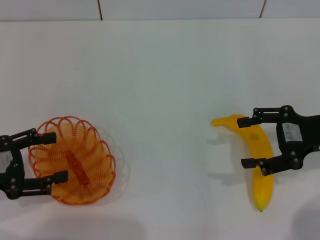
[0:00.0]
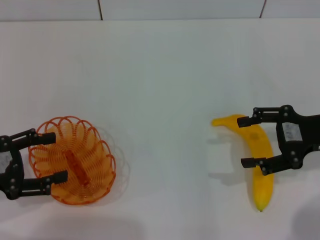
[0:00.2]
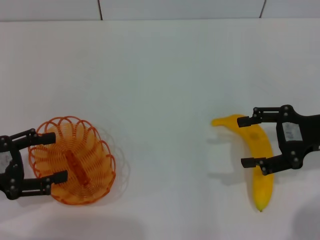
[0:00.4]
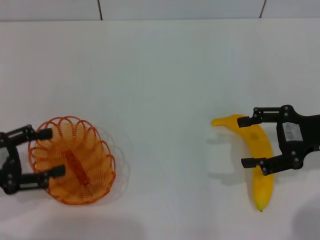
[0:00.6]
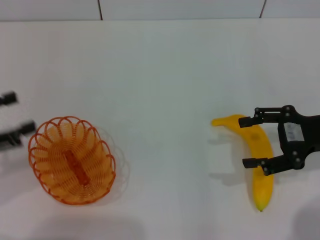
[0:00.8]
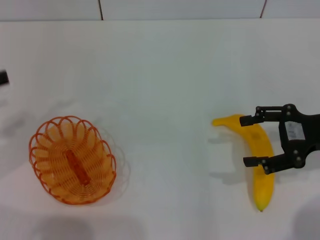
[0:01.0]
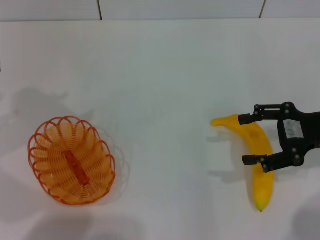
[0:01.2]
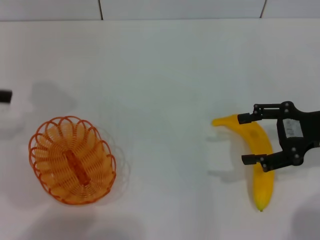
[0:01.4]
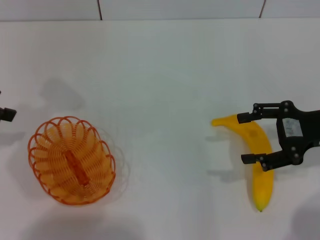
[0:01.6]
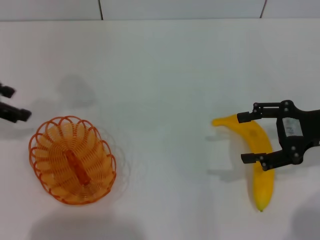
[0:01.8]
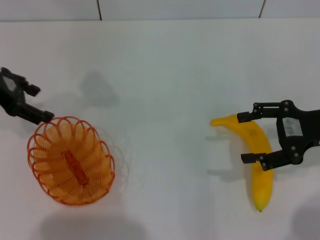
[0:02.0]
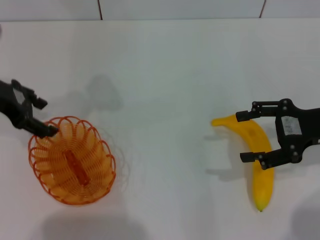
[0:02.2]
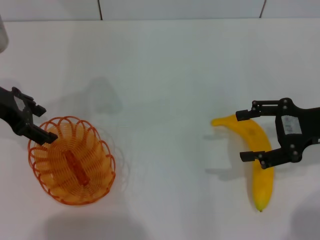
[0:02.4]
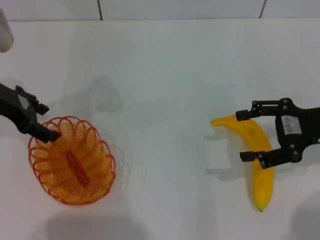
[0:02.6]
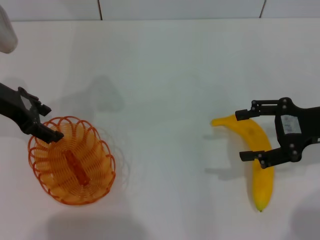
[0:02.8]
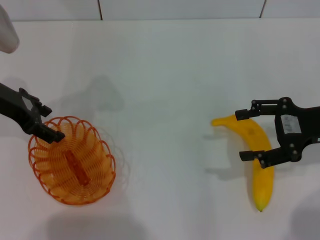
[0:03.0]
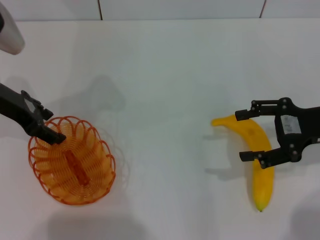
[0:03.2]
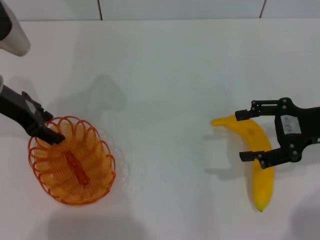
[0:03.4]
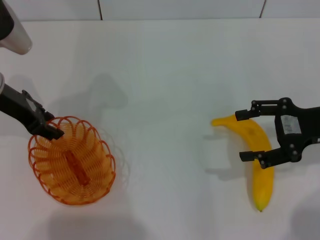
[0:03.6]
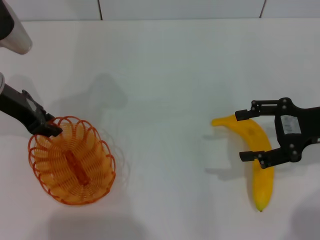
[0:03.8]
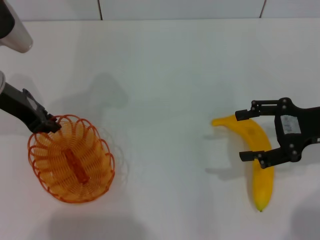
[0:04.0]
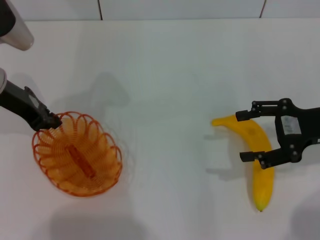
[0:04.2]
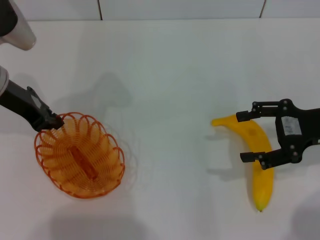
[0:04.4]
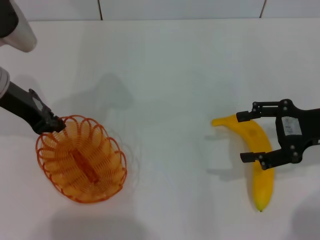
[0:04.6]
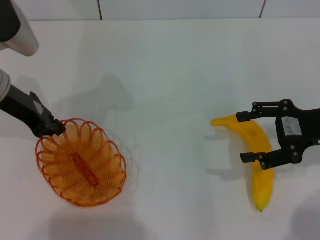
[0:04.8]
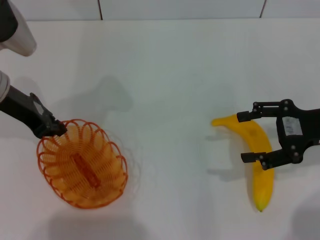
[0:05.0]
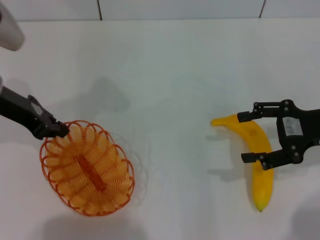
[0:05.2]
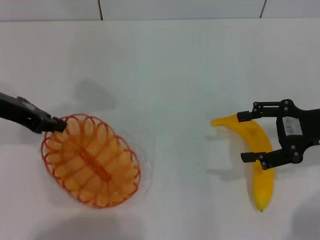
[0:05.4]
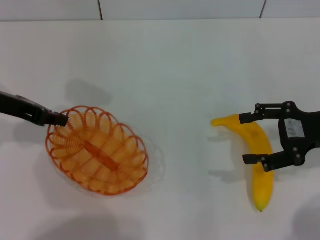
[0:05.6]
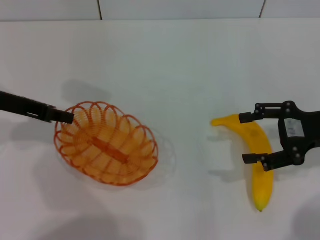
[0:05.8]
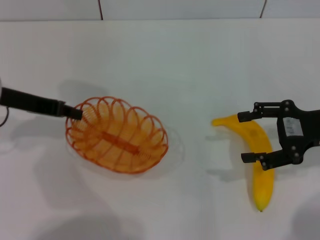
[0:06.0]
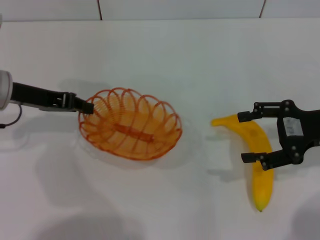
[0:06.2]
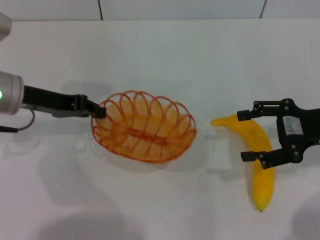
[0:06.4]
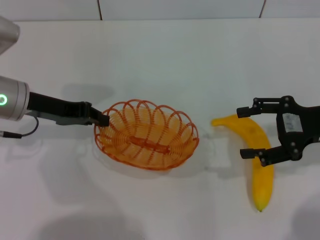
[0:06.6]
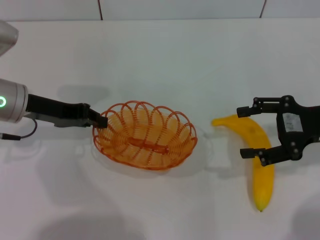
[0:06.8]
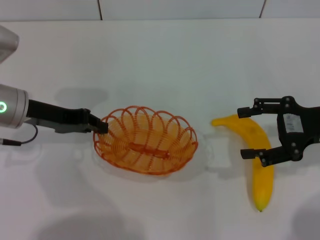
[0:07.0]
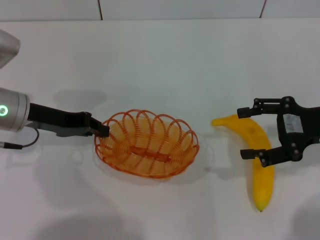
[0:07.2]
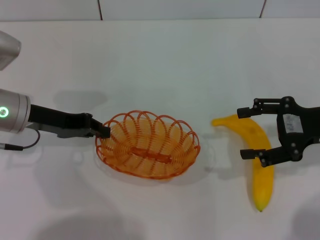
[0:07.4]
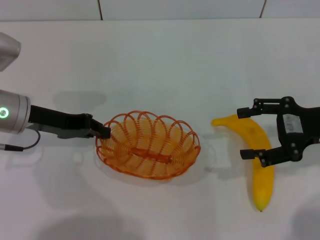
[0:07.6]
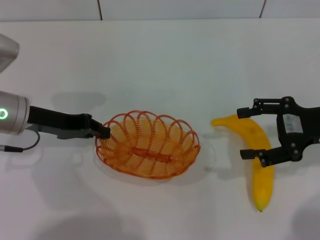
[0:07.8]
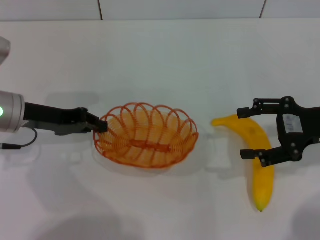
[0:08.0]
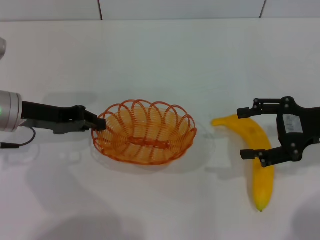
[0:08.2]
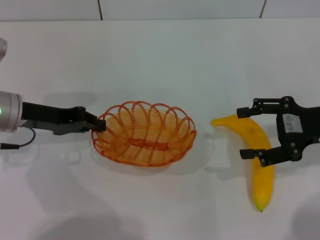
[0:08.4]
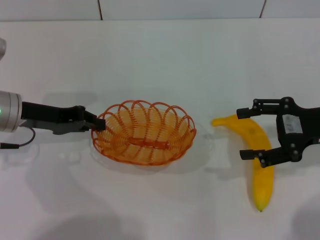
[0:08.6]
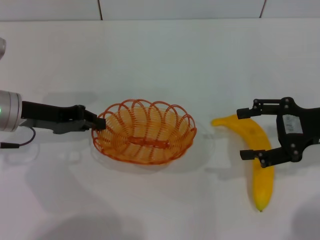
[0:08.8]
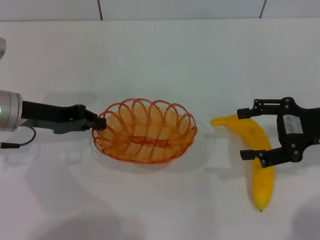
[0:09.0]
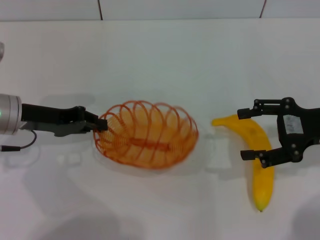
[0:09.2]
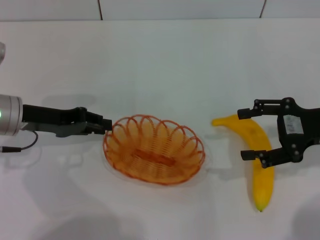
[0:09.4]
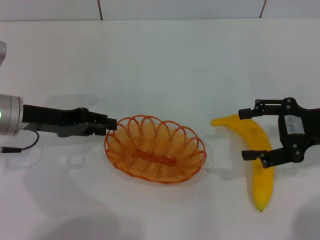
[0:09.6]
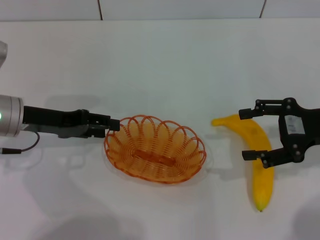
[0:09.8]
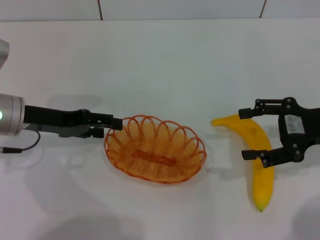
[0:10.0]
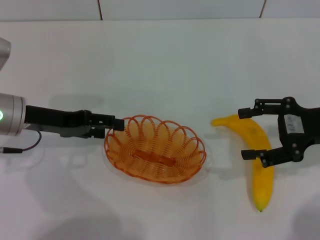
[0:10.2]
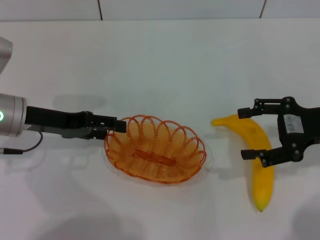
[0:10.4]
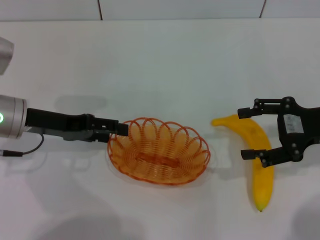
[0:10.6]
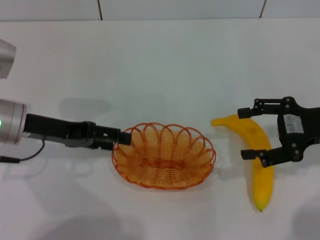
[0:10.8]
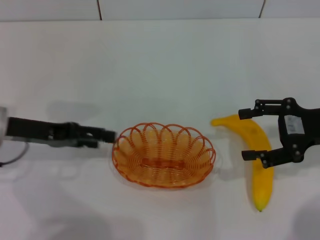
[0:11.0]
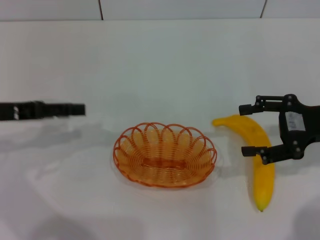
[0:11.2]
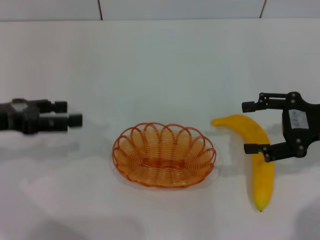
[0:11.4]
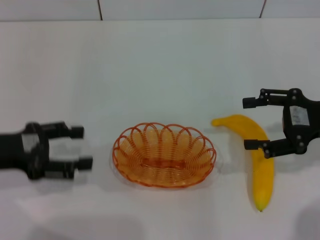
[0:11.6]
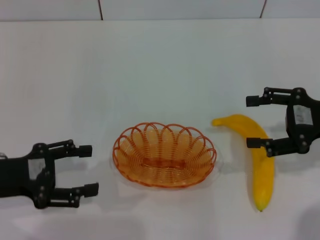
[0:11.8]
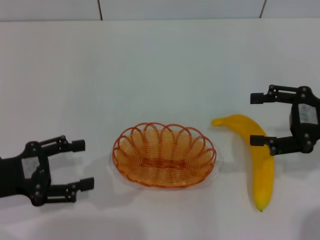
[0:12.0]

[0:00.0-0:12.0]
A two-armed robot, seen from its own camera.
Step, 0:00.0 to 0:05.8: Pick up the basket with the left gripper.
Step, 0:06.0 to 0:11.4: Place the basket in the center of view with the left gripper.
0:00.0 to 0:01.6: The left gripper goes about 15 cm forward and upward.
0:01.6 to 0:03.0: The left gripper is displaced to the right by roughly 10 cm.
0:03.0 to 0:04.4: The left gripper closes up.
0:06.0 to 0:07.6: The grippers move only a little.
0:07.6 to 0:09.0: The grippers make only small movements.
0:09.0 to 0:10.4: The left gripper opens up.
0:10.4 to 0:12.0: The left gripper shifts roughly 10 cm backward and to the left.

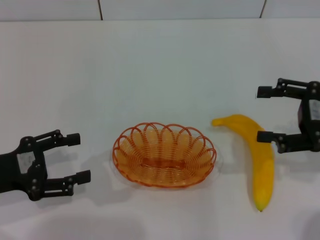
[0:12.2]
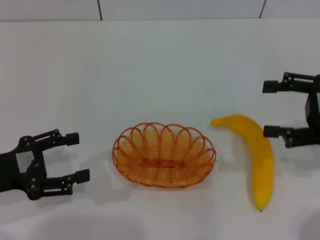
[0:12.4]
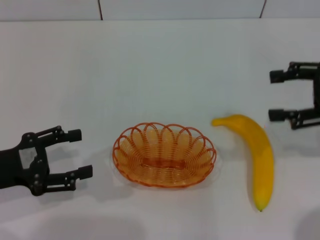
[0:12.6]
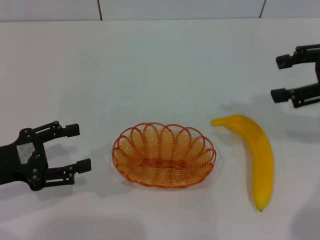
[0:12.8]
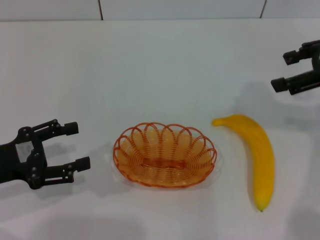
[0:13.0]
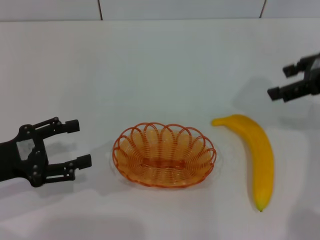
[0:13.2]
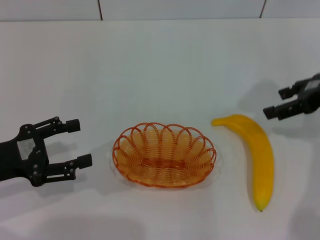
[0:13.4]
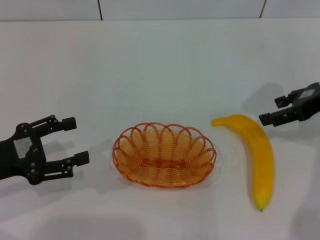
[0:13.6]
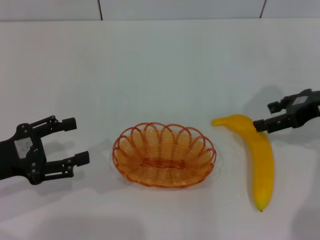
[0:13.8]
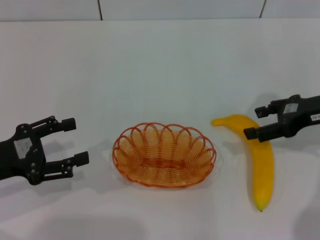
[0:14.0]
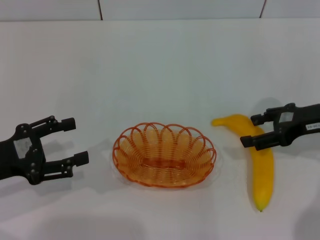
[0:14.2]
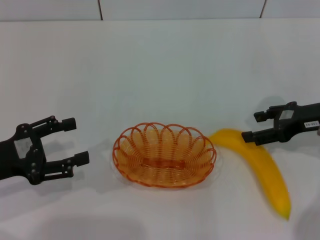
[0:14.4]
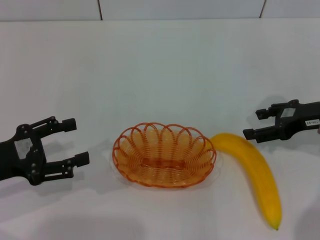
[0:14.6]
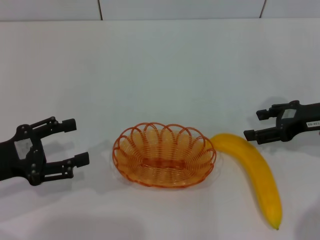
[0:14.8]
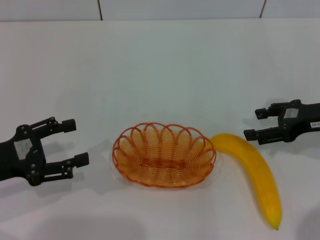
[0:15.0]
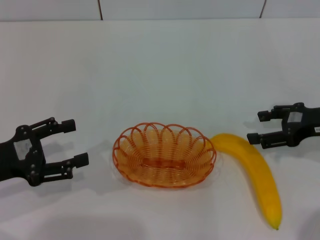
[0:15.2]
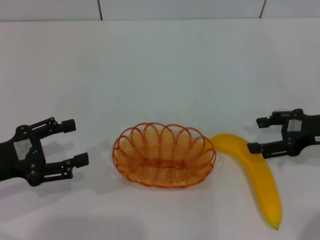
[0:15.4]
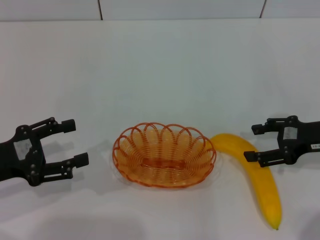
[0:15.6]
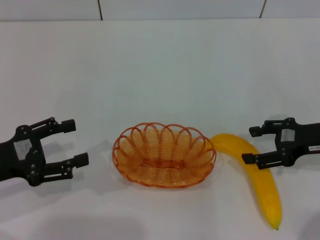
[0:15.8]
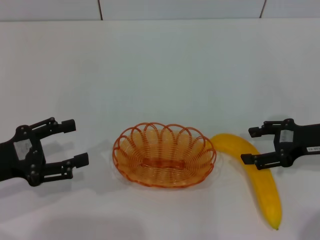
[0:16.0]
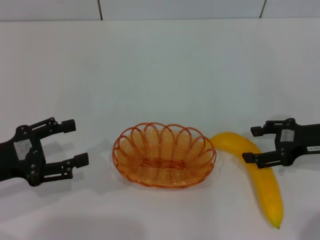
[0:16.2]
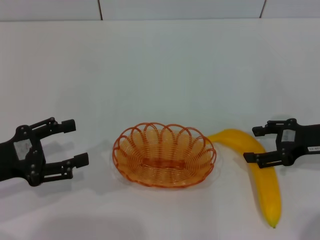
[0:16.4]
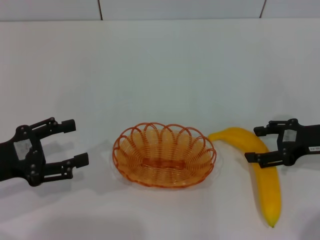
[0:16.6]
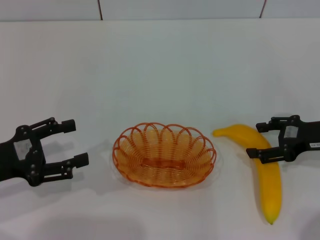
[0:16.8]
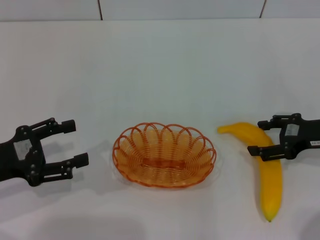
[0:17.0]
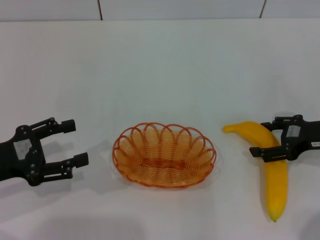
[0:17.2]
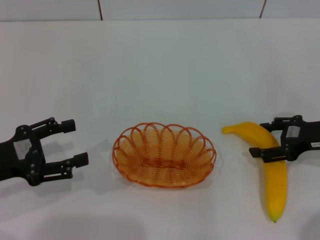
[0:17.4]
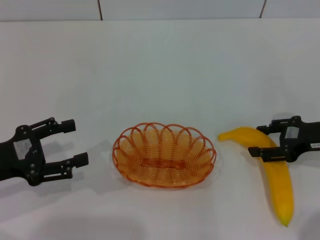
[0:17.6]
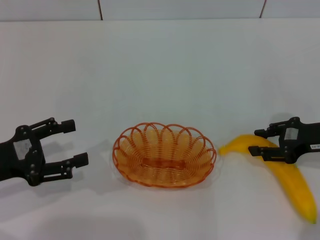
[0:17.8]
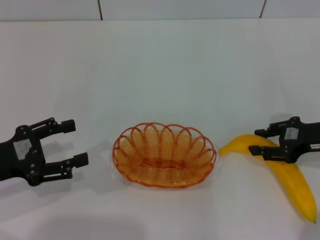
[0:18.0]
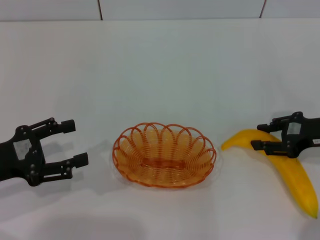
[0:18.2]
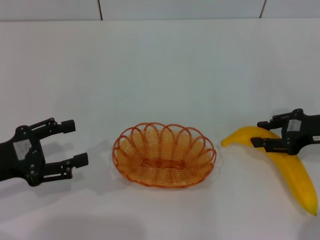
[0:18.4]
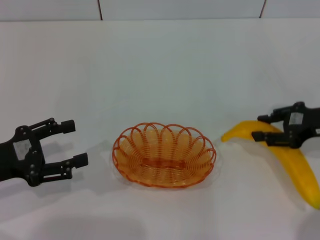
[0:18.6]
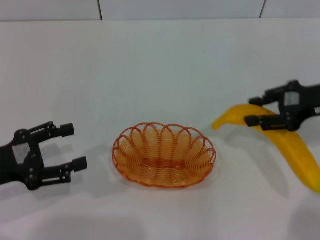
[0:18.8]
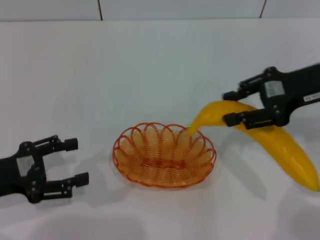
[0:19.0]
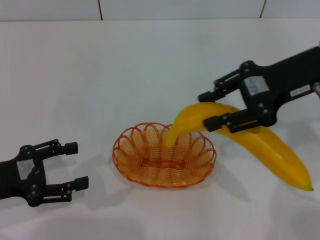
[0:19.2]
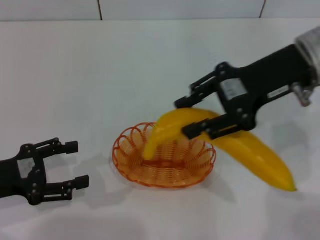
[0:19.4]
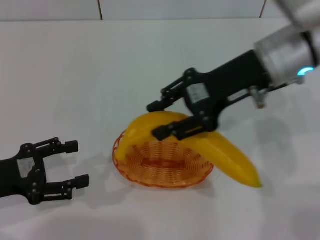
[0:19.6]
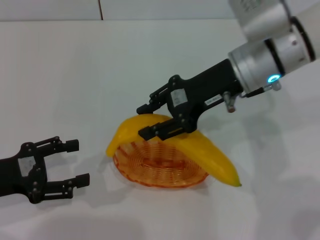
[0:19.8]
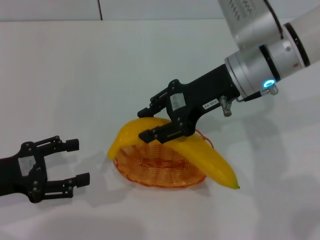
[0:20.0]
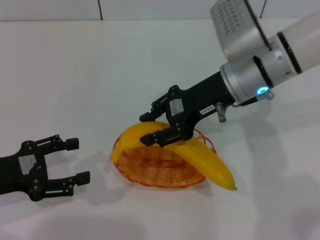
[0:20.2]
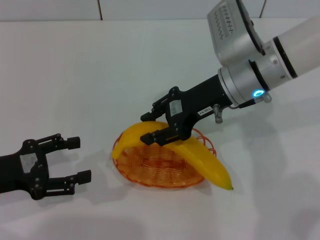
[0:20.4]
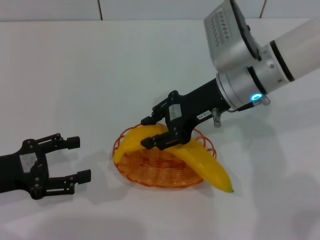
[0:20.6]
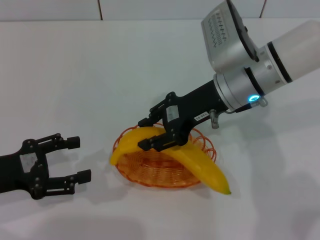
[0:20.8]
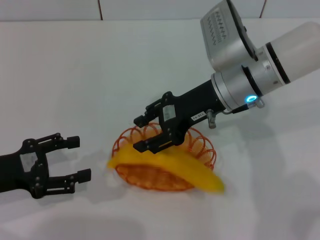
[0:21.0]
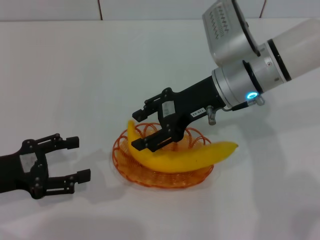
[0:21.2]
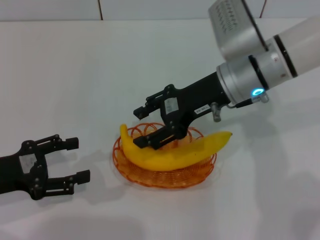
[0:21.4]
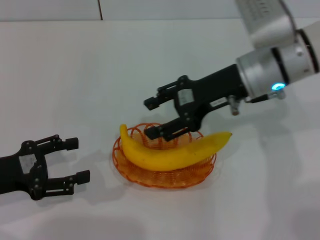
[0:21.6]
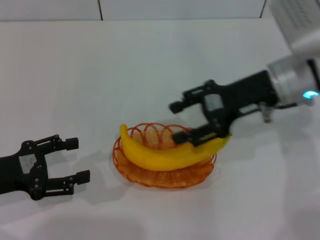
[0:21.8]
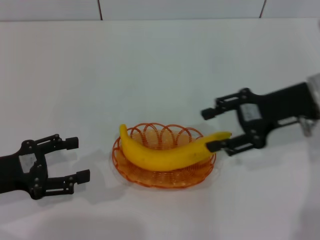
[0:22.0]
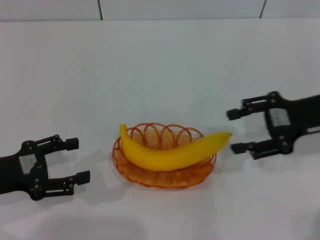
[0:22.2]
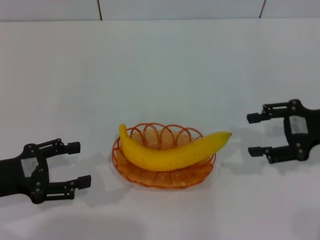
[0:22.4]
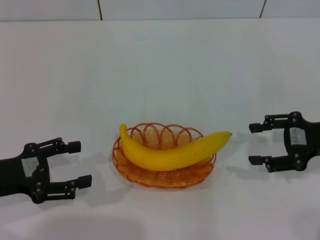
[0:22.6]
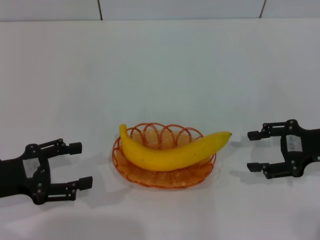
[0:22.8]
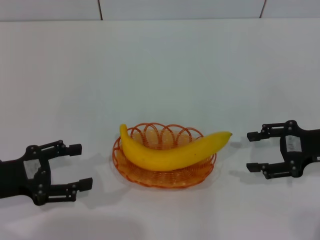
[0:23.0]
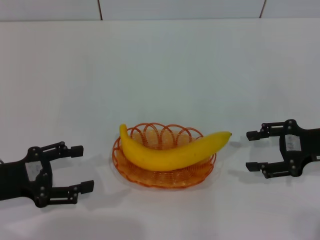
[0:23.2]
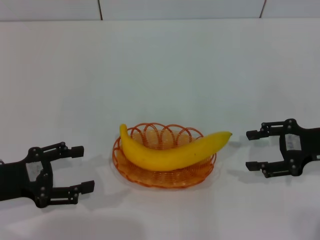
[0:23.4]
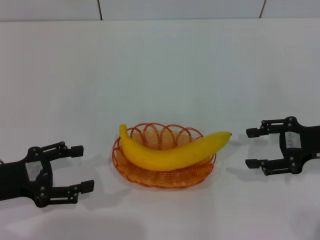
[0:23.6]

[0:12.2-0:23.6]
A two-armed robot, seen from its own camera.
Step, 0:12.2 to 0:19.0: Pick up the banana with the right gripper.
Step, 0:19.2 to 0:21.4: Place the banana into the basket with the right gripper.
0:12.2 to 0:13.6: The right gripper heads forward, covering some 5 cm, and goes upward and returns, about 10 cm each way.
0:13.6 to 0:15.0: The right gripper moves downward, about 5 cm.
0:15.0 to 0:16.4: There are only small adjustments of the grippers.
0:16.4 to 0:17.8: The right gripper closes.
0:17.8 to 0:19.4: The right gripper is displaced upward and to the left by some 20 cm.
0:19.4 to 0:20.8: The right gripper shifts some 10 cm downward and to the left.
0:20.8 to 0:22.2: The right gripper is displaced to the right by some 15 cm.
0:22.2 to 0:23.6: The right gripper travels downward by roughly 5 cm.
